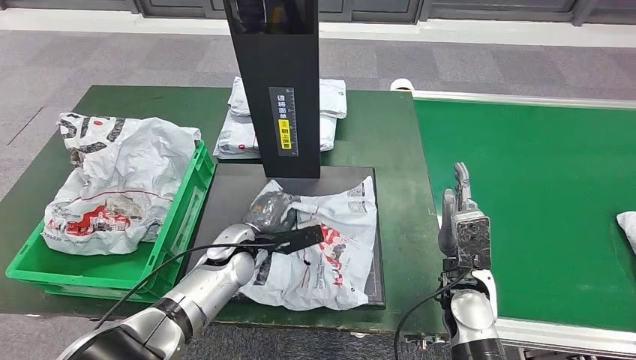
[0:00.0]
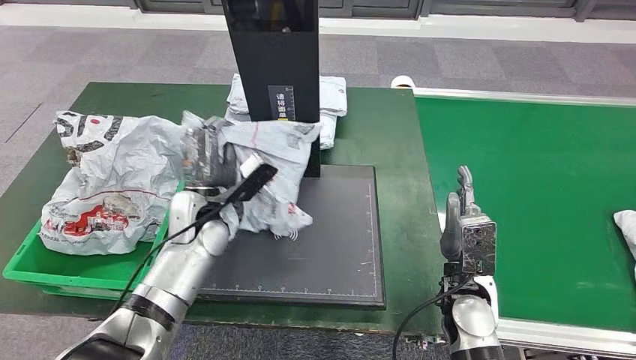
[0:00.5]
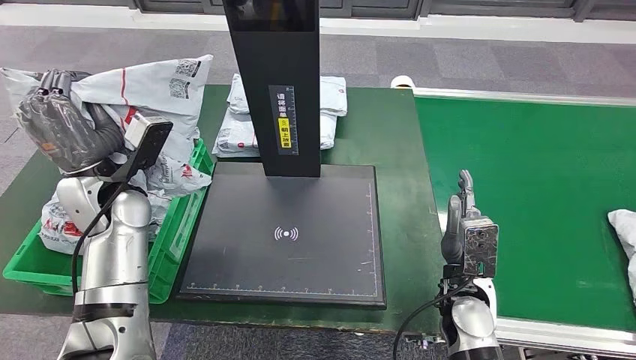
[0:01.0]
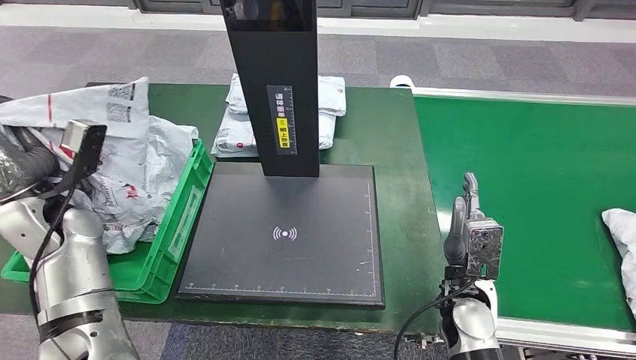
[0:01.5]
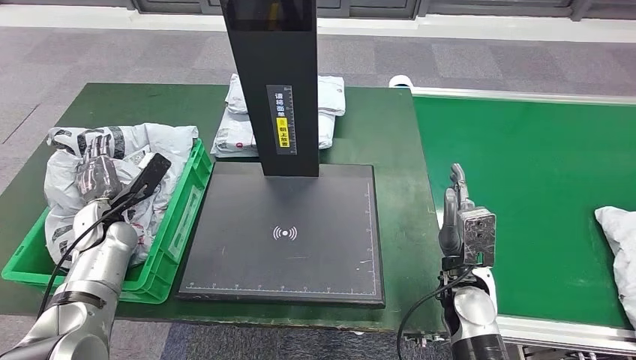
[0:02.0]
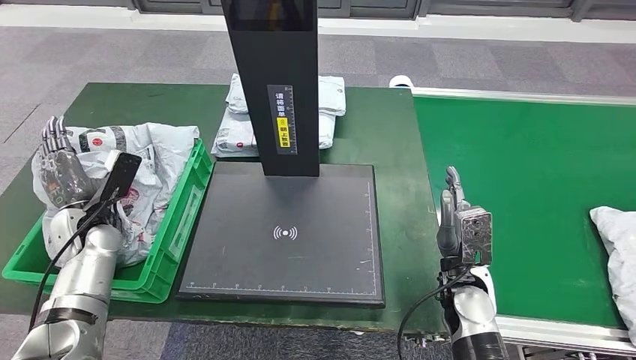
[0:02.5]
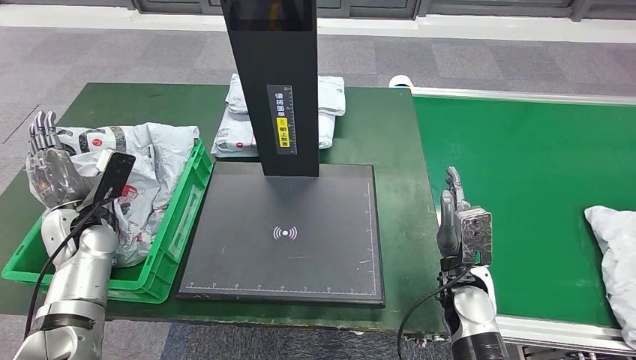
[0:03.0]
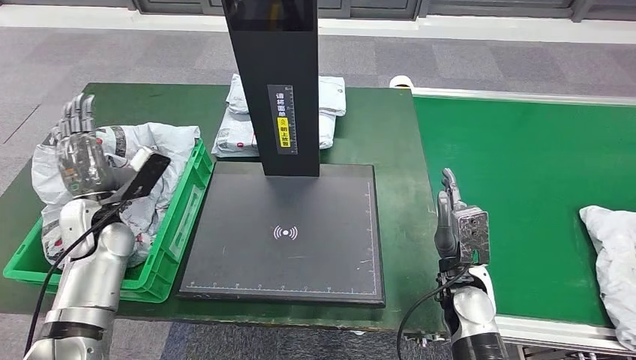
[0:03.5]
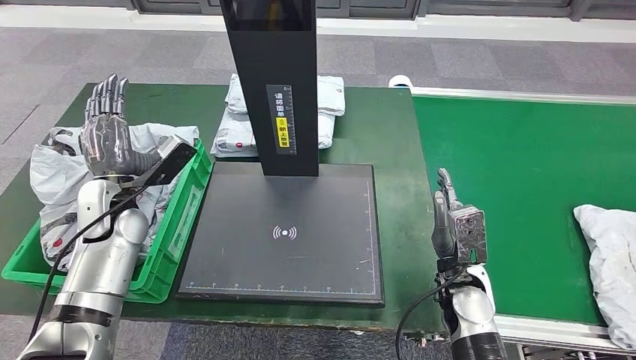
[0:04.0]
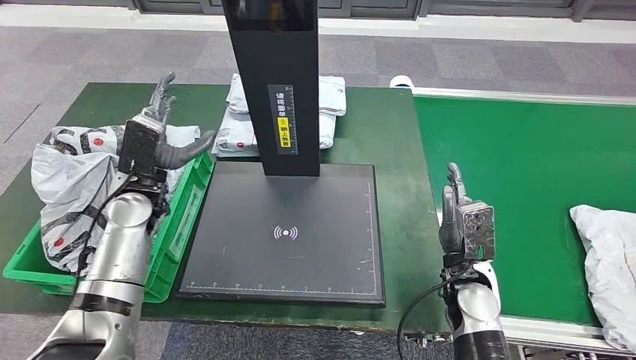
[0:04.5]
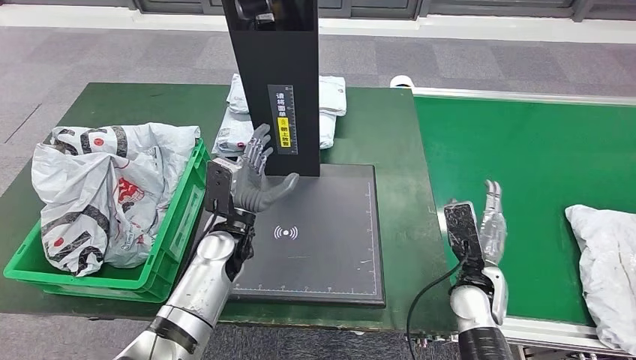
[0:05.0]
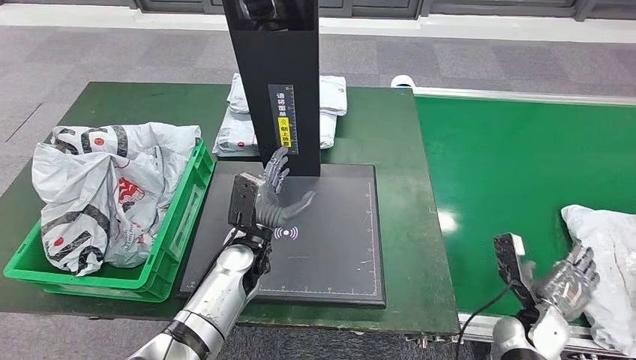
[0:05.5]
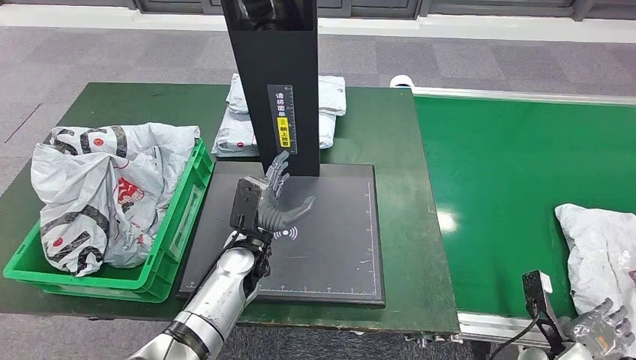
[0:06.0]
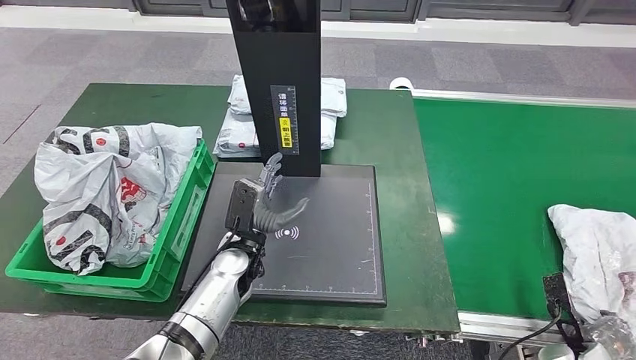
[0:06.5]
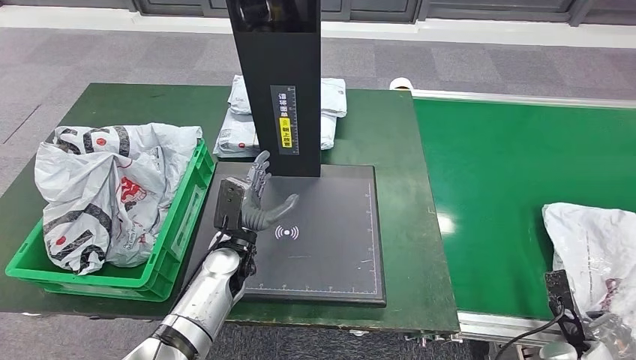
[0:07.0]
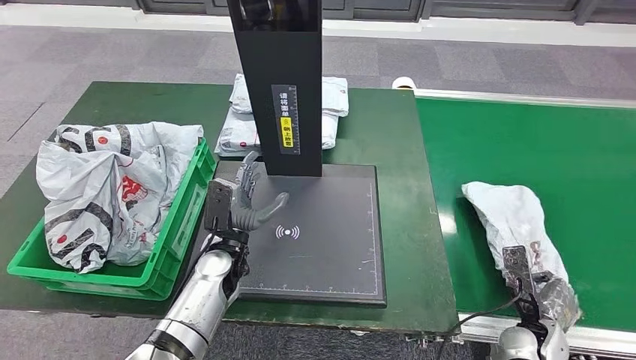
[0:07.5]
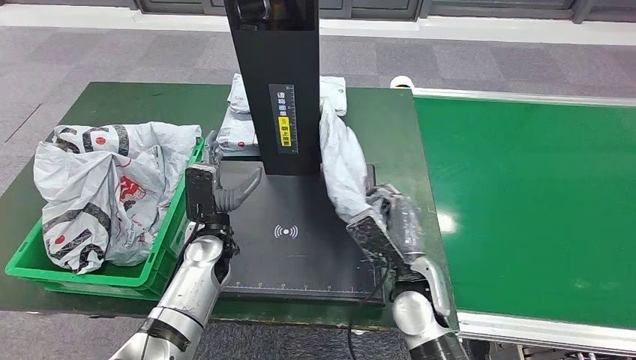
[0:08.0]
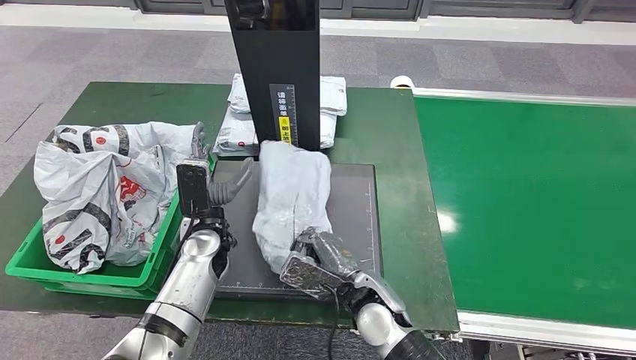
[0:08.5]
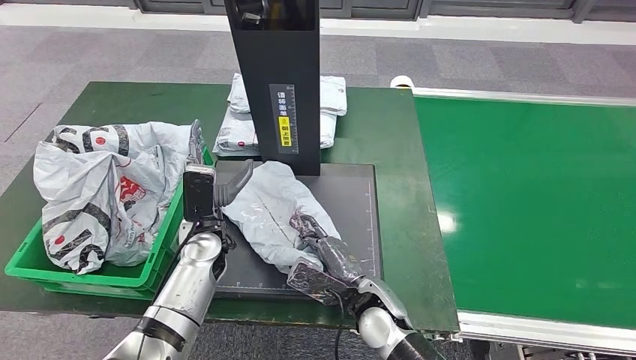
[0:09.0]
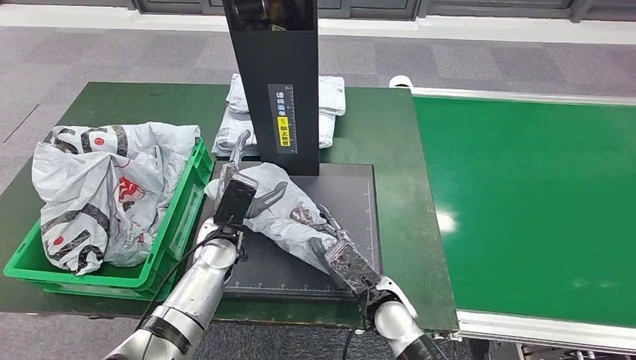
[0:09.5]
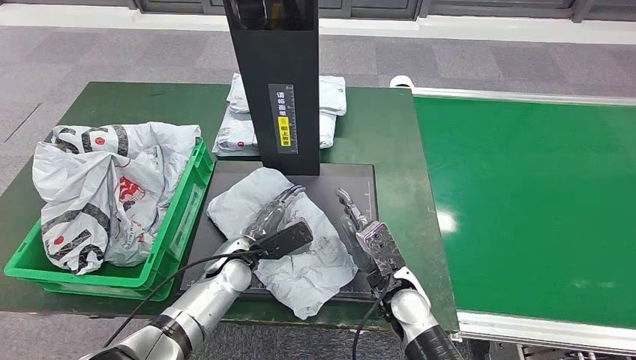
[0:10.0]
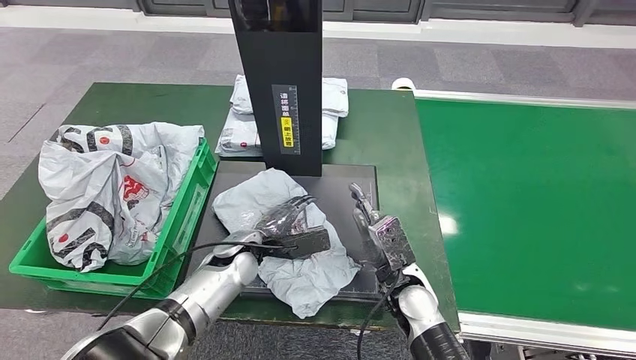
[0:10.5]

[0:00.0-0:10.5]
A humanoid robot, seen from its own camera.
Step, 0:01.0 to 0:02.0: Place the parcel into the delivery box.
Step, 0:04.5 to 0:08.0: Pick up the parcel from the conveyor belt.
0:02.0 to 0:04.0: The left hand shifts about 10 cm upward and to the right.

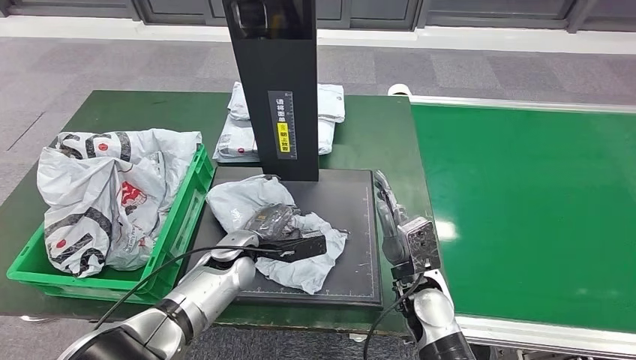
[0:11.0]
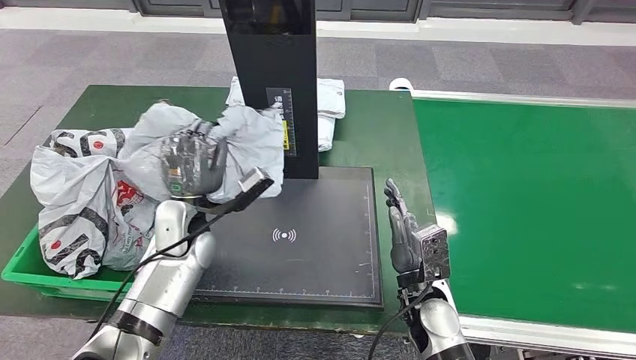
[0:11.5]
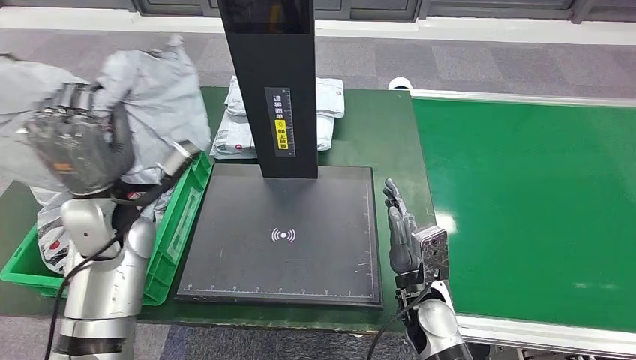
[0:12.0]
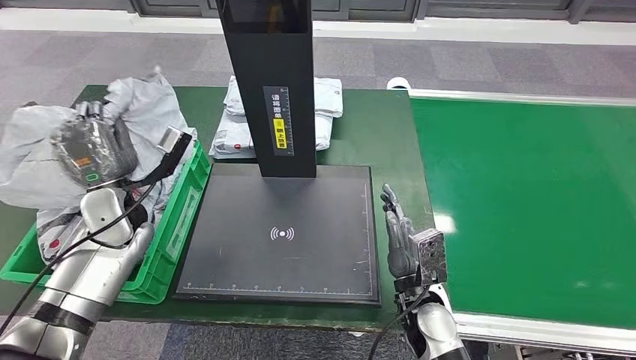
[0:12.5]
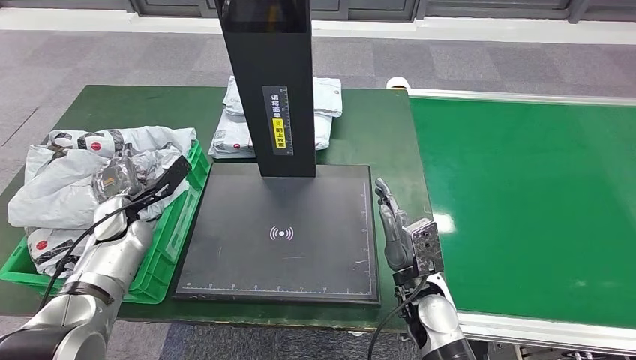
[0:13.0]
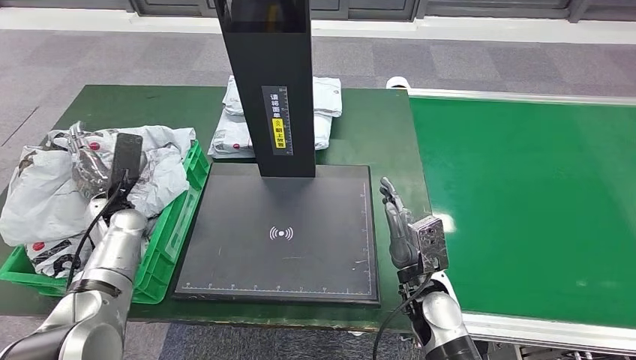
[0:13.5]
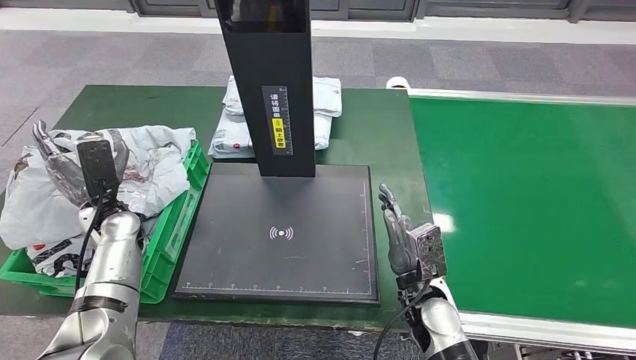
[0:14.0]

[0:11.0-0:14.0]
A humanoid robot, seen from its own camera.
Step, 0:11.0 to 0:12.0: Pick up the parcel from the inbound machine.
Step, 0:12.5 to 0:14.0: Place the parcel into the delivery box.
